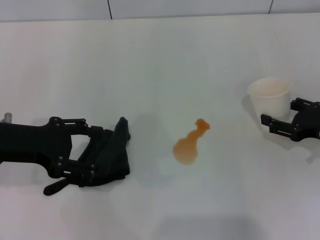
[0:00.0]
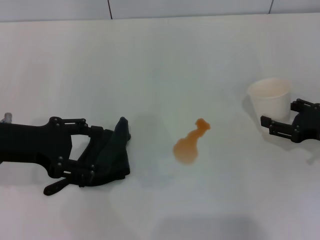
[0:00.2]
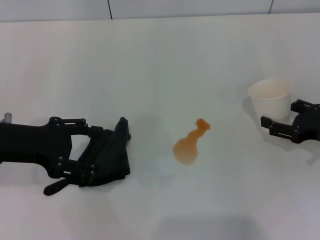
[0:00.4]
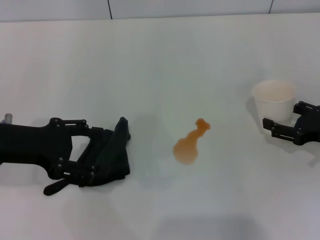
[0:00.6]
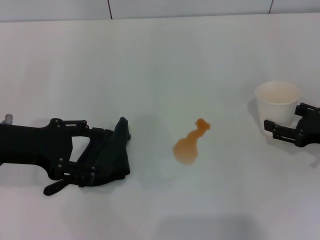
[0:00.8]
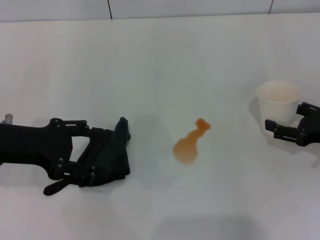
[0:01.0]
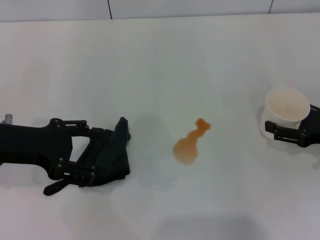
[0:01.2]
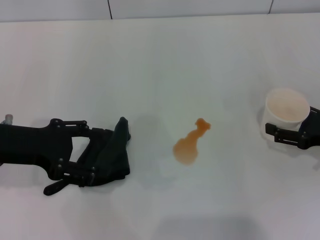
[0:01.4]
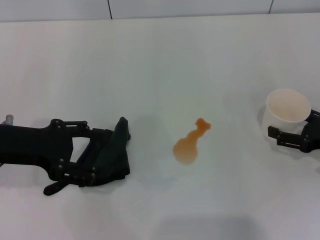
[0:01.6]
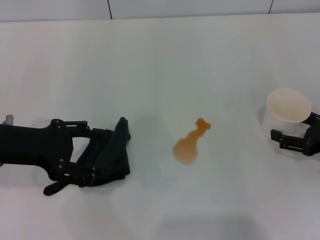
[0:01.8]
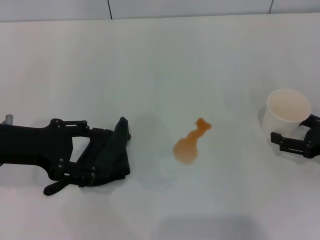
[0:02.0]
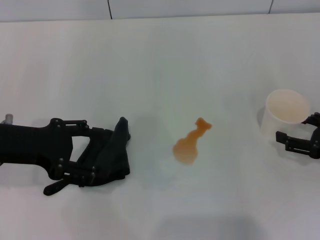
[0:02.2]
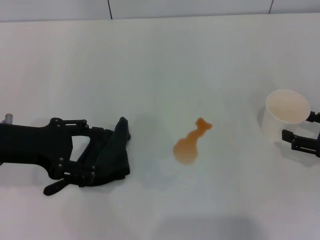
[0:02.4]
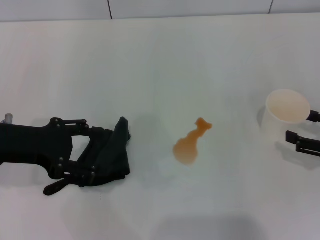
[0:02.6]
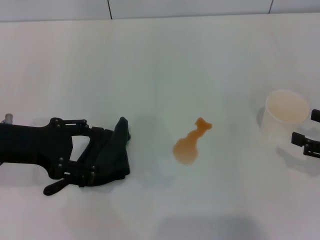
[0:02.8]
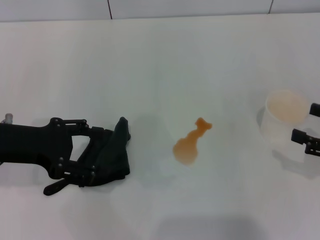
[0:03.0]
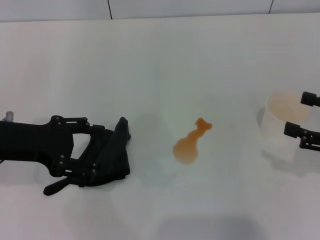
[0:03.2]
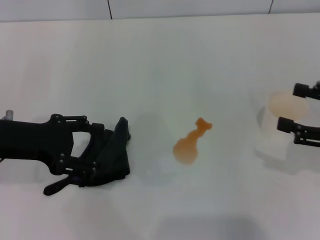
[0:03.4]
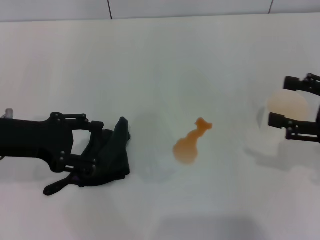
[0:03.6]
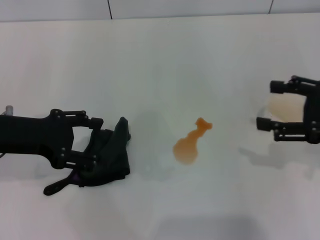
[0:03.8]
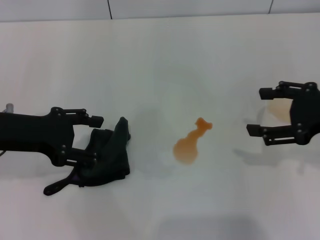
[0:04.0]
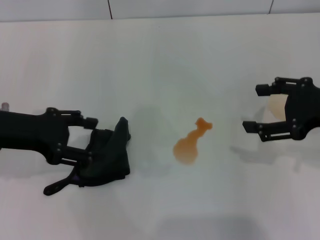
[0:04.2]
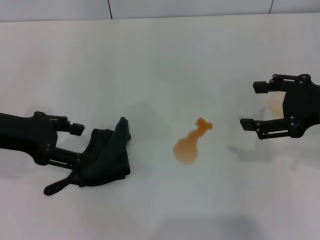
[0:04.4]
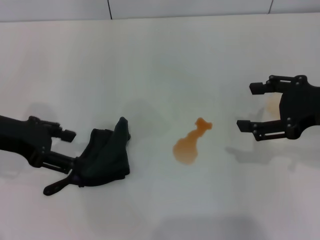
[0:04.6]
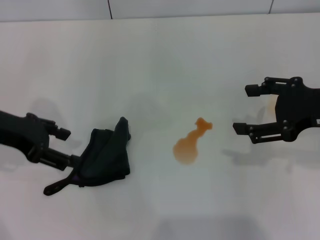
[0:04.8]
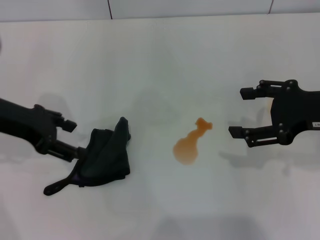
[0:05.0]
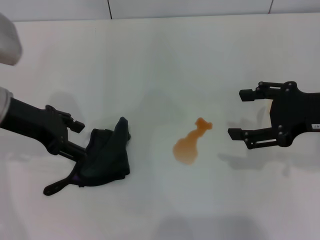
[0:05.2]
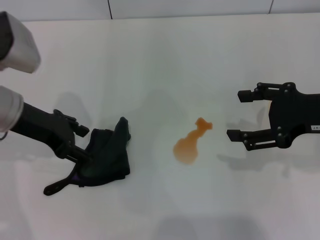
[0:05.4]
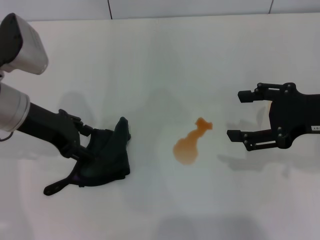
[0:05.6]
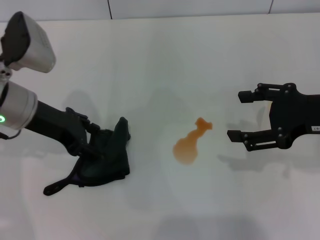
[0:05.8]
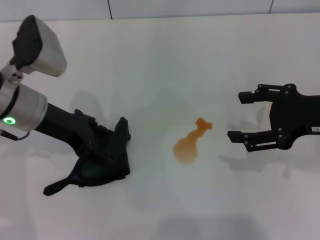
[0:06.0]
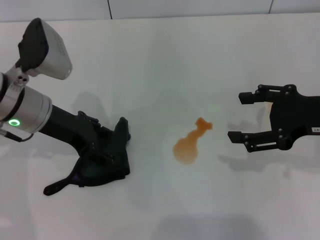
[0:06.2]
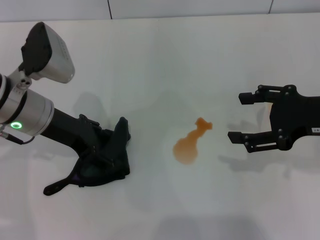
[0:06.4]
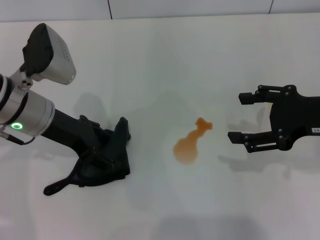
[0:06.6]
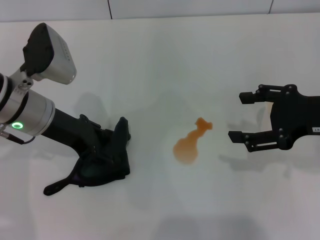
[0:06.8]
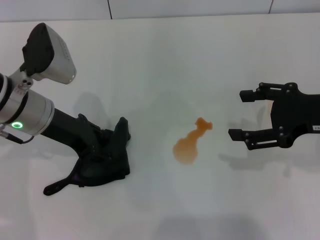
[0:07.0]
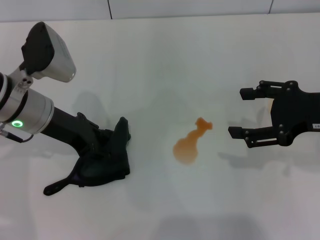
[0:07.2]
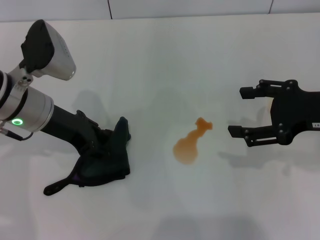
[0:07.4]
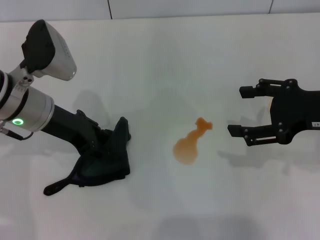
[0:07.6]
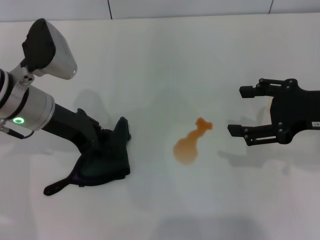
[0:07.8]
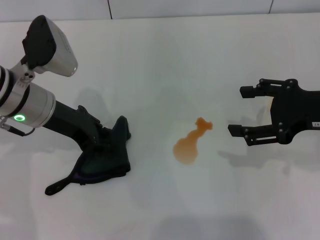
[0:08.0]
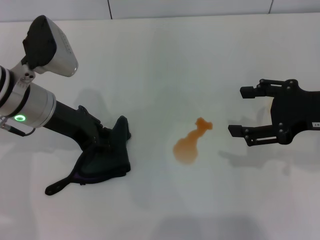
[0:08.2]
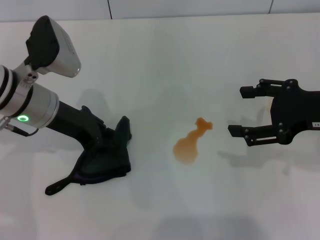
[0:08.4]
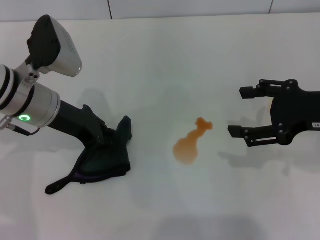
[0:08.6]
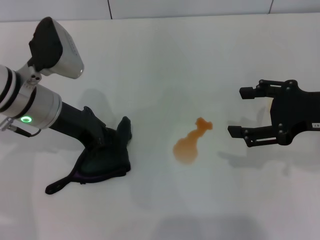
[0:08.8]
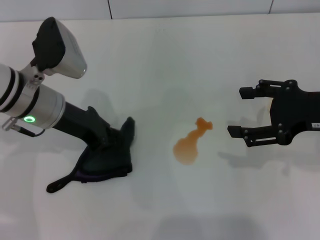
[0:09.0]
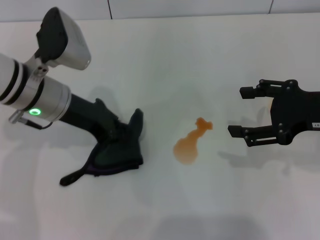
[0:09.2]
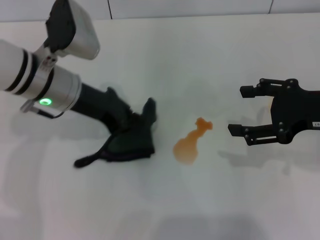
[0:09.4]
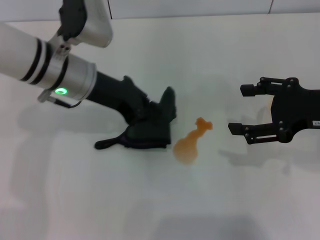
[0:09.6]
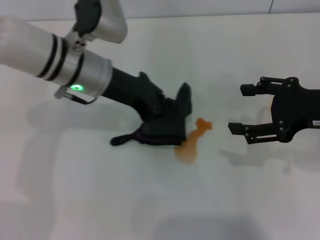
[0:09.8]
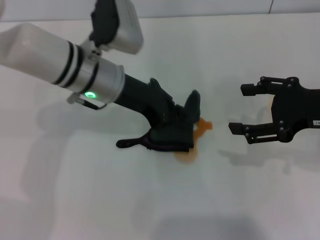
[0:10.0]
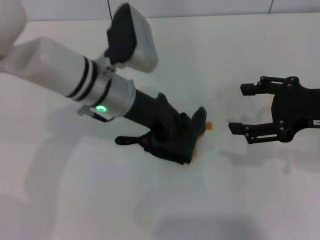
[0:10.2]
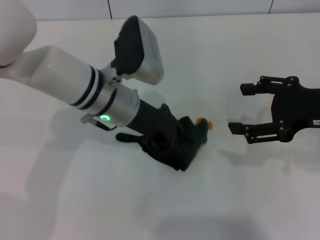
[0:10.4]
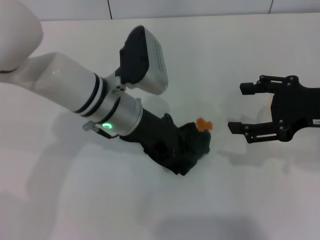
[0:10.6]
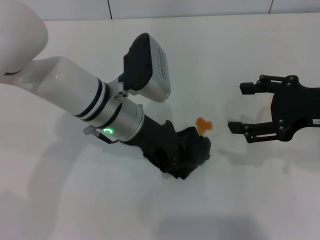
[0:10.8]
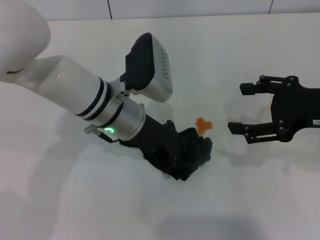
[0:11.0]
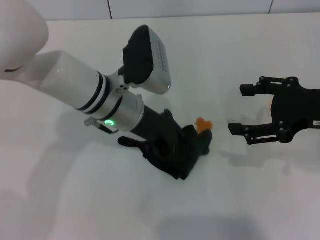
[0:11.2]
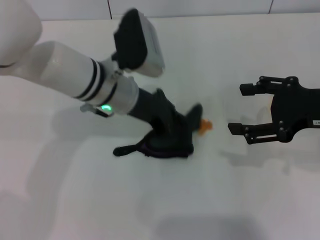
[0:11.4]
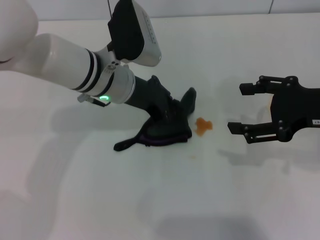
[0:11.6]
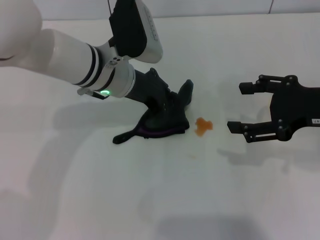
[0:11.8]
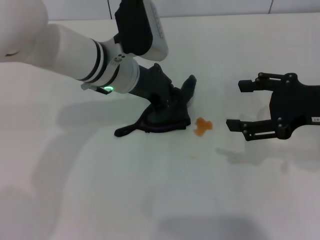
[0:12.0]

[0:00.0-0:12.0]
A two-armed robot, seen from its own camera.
Step, 0:00.0 to 0:02.6: Stand the paper cup upright with the right gripper.
Step, 0:02.8 to 0:07.8: Grasp the rag with the left gripper.
0:00.0 to 0:01.6: The right gripper opens its fingers.
0:01.6 to 0:03.0: The right gripper goes some 10 cm upward and backward.
0:03.0 to 0:04.4: The right gripper is displaced to the left, upward and forward by about 10 cm.
0:04.4 to 0:06.0: The left gripper is displaced to the right by roughly 5 cm.
0:06.0 to 0:07.6: The left gripper closes.
0:07.6 to 0:09.0: The left gripper closes.
0:09.0 to 0:10.4: The left gripper shifts roughly 10 cm to the right.

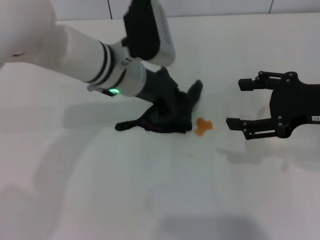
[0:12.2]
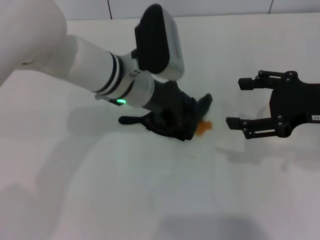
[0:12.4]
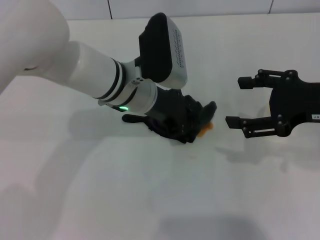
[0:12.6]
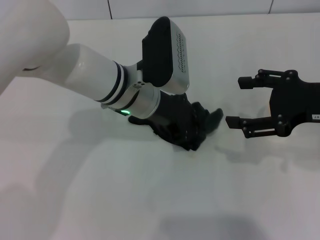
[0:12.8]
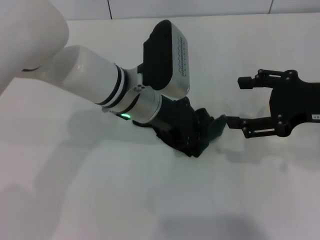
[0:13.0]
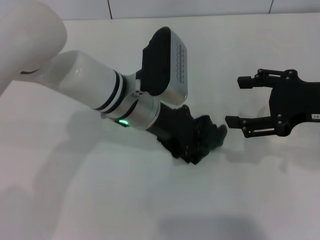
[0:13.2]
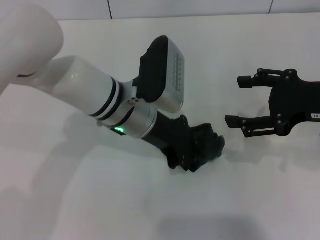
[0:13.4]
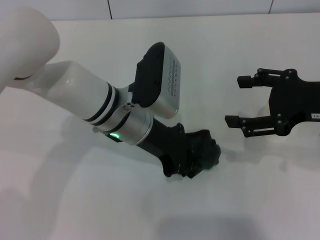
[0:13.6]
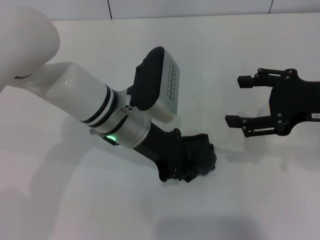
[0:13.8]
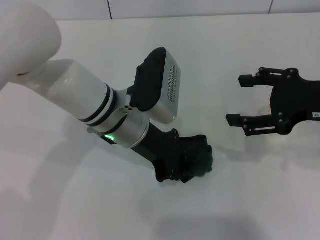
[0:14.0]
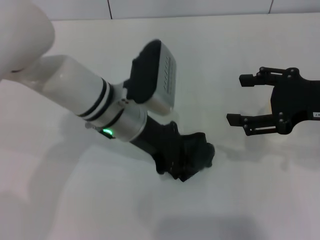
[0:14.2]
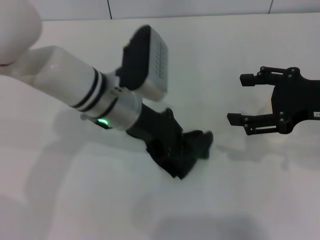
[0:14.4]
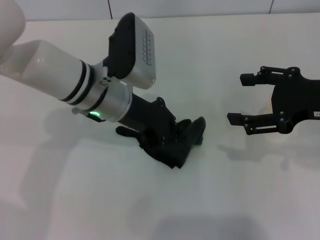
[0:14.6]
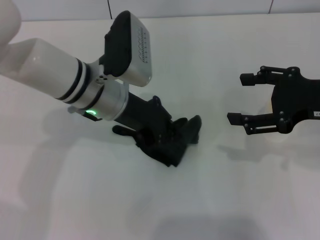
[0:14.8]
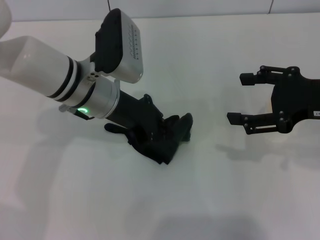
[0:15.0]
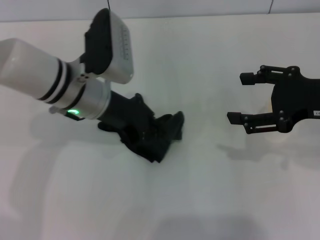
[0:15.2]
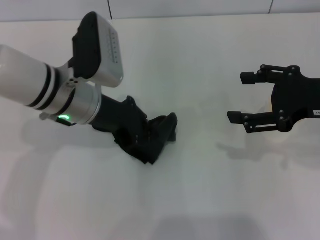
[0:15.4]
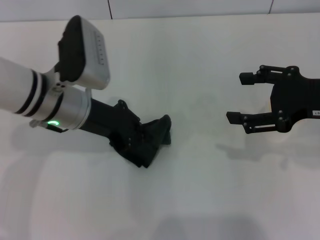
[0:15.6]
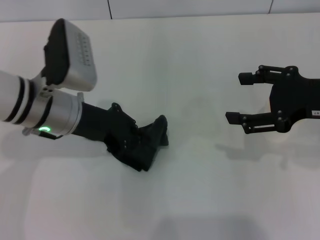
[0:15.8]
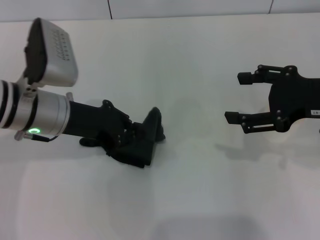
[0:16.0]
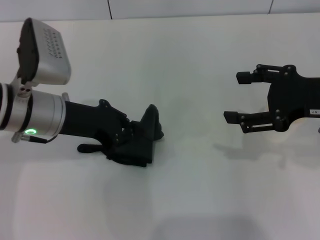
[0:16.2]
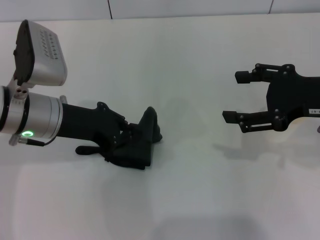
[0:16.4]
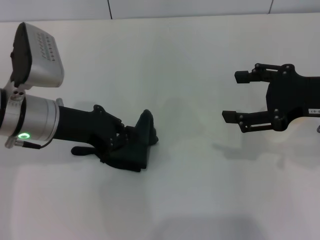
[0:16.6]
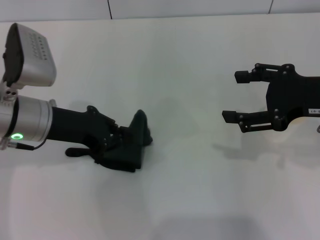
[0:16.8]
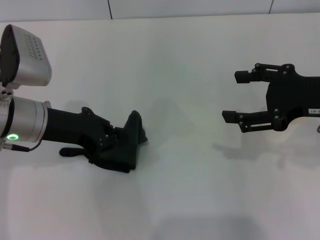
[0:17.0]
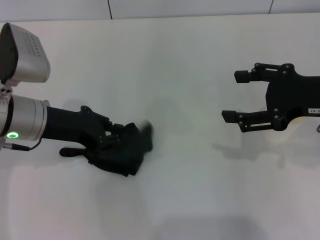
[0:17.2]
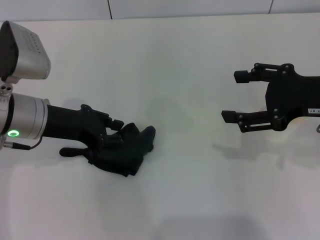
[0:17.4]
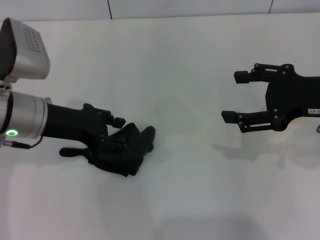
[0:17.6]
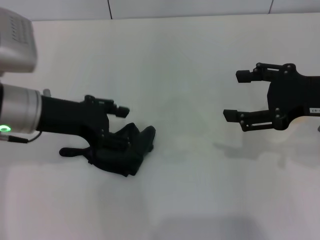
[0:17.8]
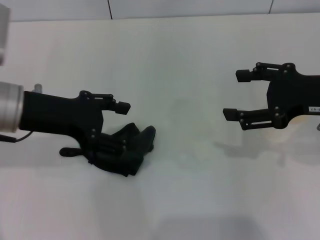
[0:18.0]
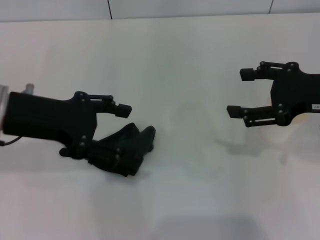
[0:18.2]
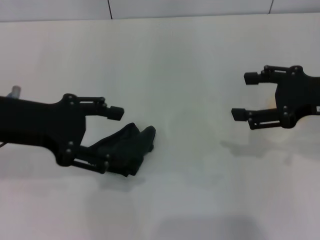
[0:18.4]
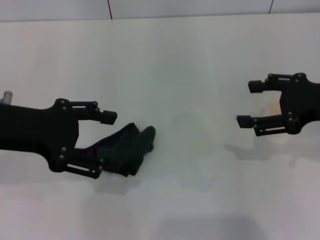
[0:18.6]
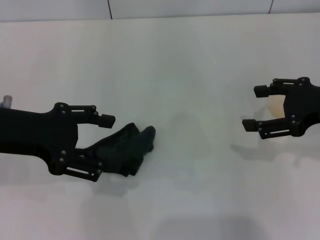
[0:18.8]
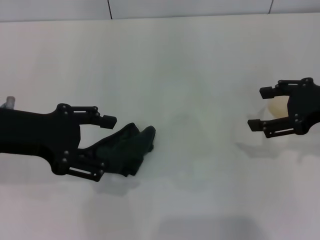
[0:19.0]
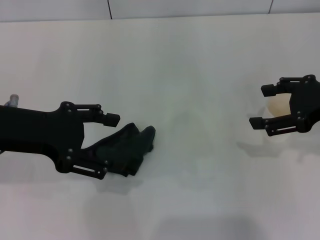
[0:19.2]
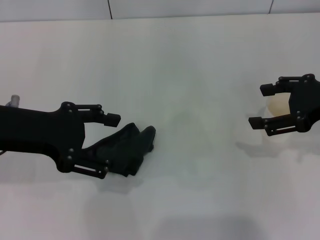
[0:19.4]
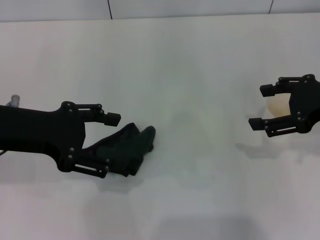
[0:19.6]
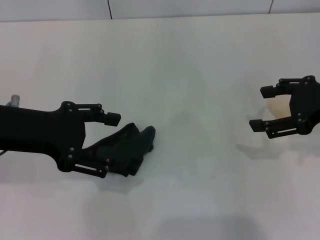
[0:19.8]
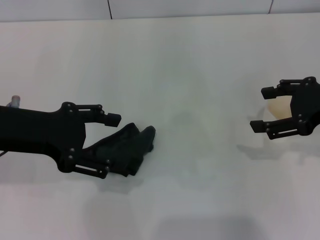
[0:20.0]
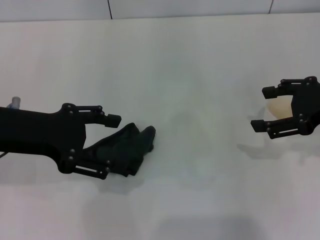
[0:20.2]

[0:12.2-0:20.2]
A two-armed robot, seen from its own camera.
Step, 0:12.2 to 0:14.4: Wipe the stains off the table with the left gripper.
Step, 0:14.6 to 0:17.6: Place the rag on the table with the left gripper.
0:12.2 to 0:13.8: The left gripper is displaced backward by approximately 5 cm.
0:13.8 to 0:15.4: The left gripper is displaced to the left by roughly 5 cm.
0:15.4 to 0:17.0: The left gripper goes about 5 cm to the left.
0:17.0 to 0:18.6: The left gripper heads upward, covering approximately 5 cm, and opens its fingers.
0:18.6 to 0:20.2: The grippers stay close to where they were, moving slightly.

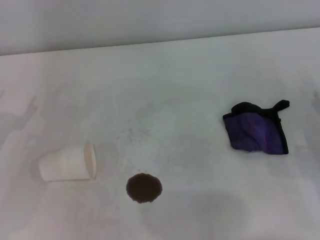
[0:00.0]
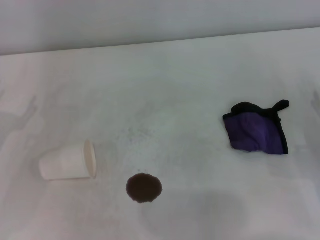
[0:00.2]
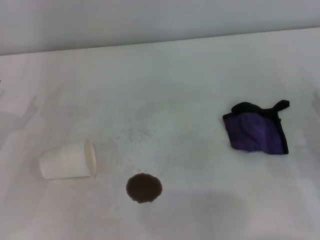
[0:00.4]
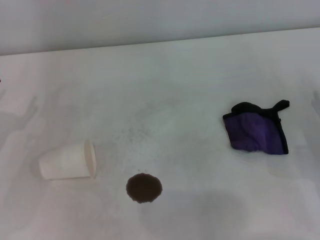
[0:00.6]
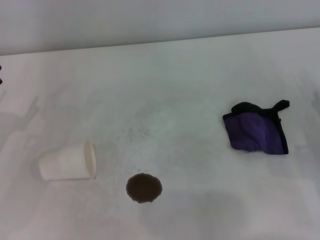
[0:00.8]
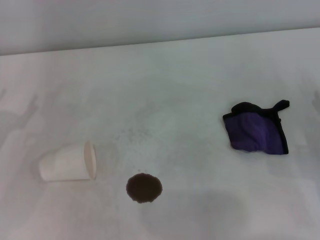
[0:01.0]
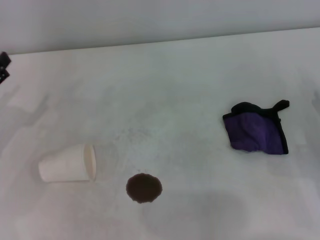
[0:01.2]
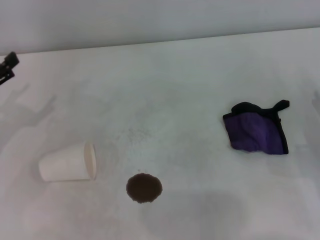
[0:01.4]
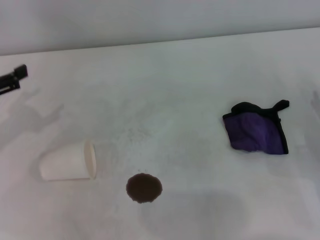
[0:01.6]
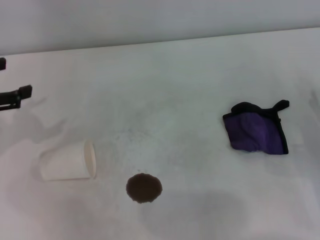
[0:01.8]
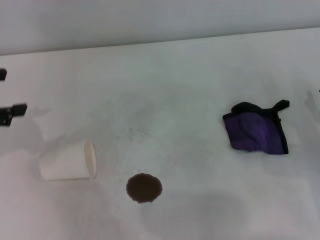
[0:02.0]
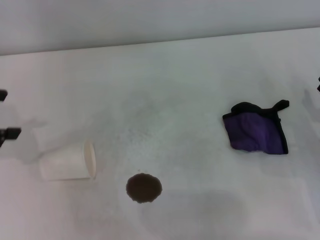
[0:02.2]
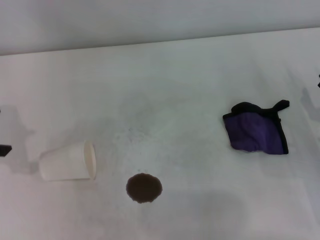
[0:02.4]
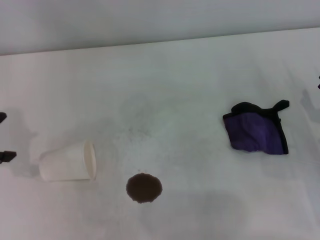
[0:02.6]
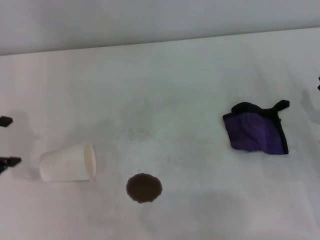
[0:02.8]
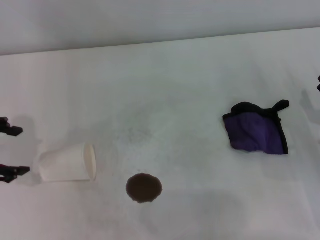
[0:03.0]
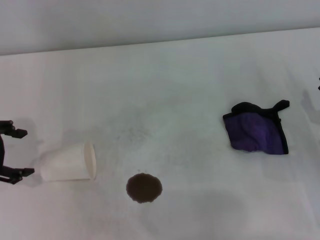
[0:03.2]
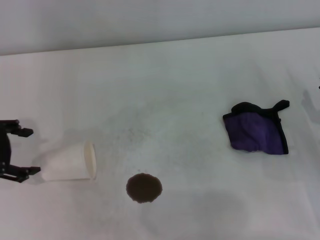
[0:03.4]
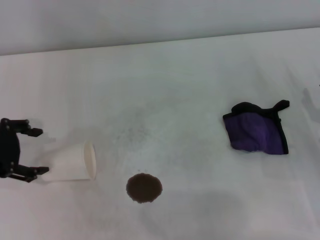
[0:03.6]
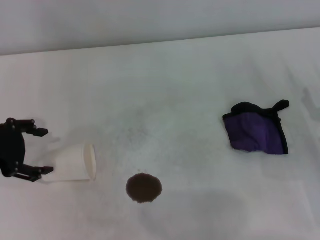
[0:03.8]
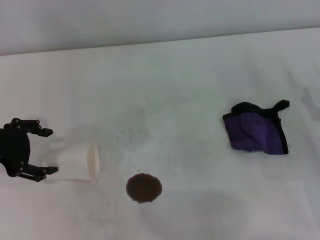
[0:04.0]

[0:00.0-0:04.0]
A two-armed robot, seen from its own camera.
0:01.4 to 0:02.6: The left gripper is displaced upward by about 10 cm.
0:02.6 to 0:04.0: The left gripper is displaced downward by about 10 cm.
